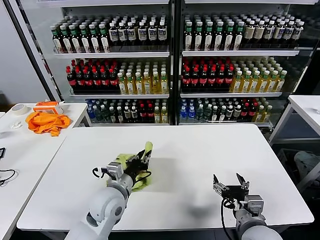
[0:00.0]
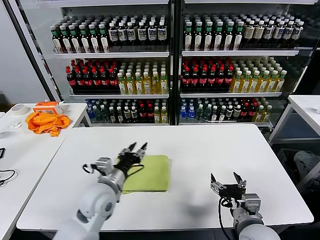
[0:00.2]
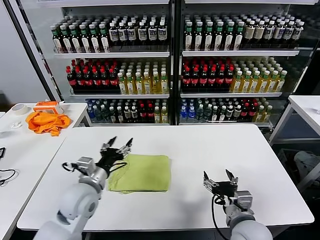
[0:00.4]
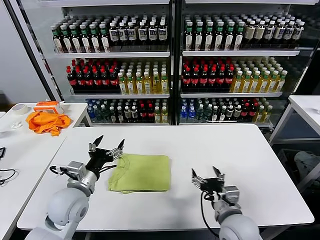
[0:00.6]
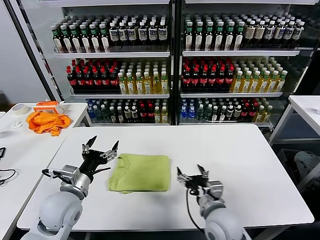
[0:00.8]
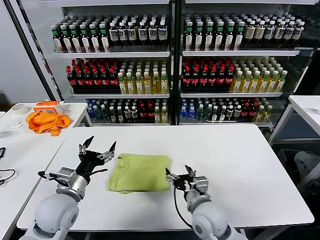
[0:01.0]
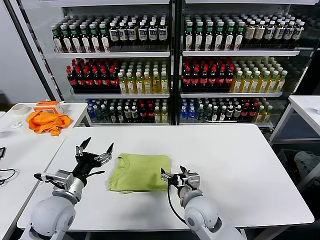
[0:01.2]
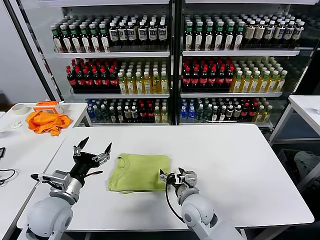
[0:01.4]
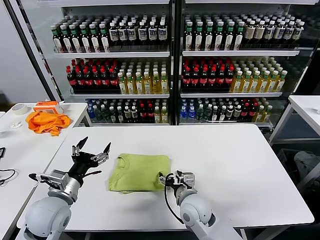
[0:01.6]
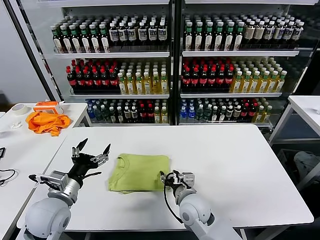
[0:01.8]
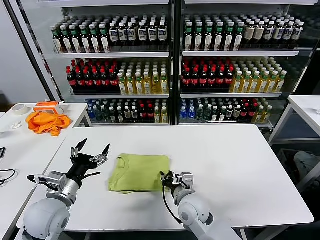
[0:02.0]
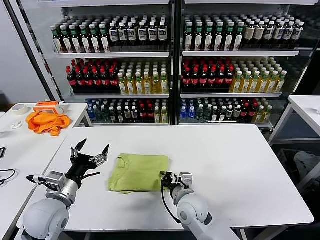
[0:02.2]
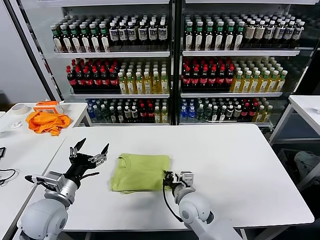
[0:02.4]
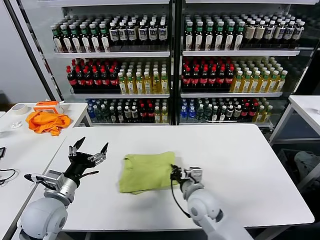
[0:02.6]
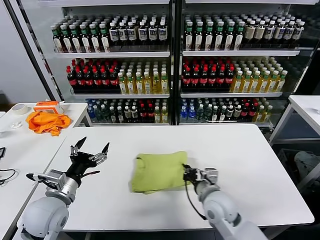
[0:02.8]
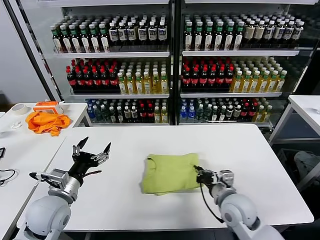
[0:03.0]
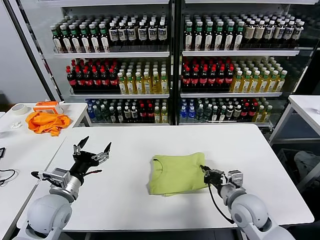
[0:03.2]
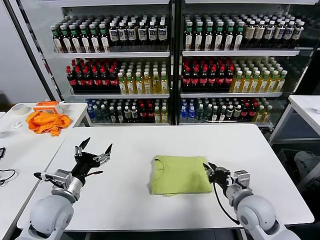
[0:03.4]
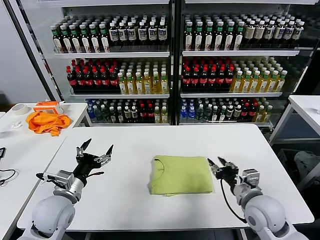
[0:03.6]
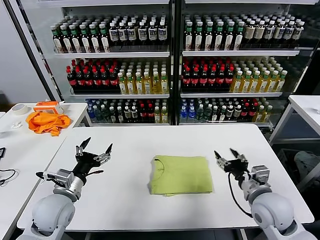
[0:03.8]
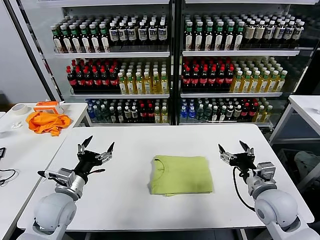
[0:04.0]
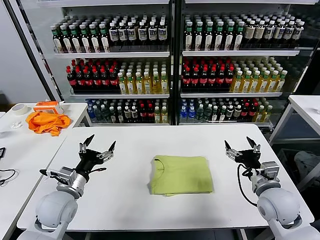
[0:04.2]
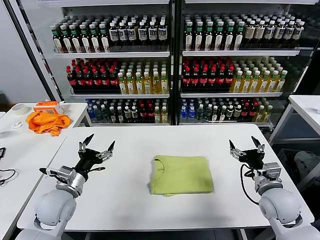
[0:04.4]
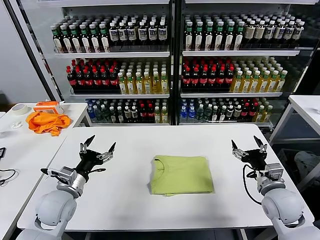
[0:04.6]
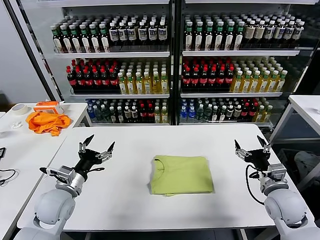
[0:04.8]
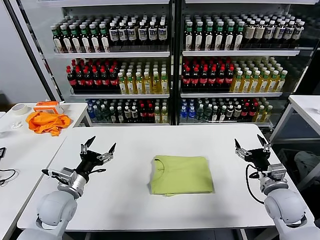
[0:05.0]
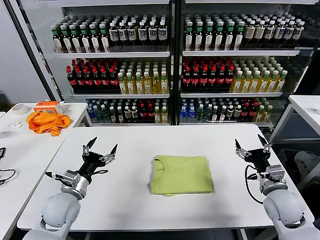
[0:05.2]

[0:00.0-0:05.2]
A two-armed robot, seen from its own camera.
Task of the whole recording: fold and organize the clothes.
Step, 0:00.2 to 0:03.4: Drag the clothes to the center of the table.
0:00.0 to 0:01.8: The left gripper shifts roughly 15 cm to the left, and opens its fingers, while the right gripper is displaced to the left and forward by some 20 cm.
0:01.8 to 0:03.4: The right gripper travels to the right by some 15 cm, and closes its fingers.
0:03.4 to 0:05.2: The right gripper heads to the right, covering some 10 cm, and opens its fingers.
